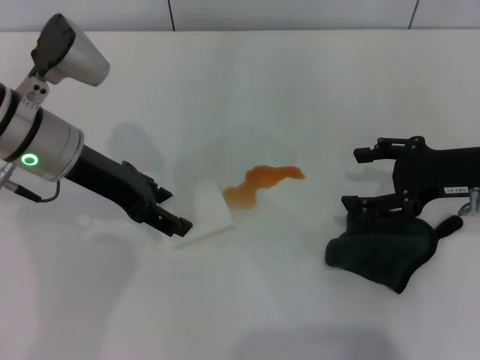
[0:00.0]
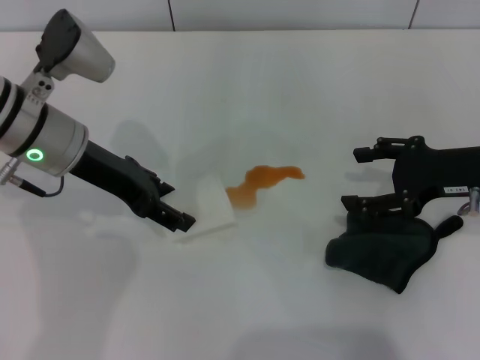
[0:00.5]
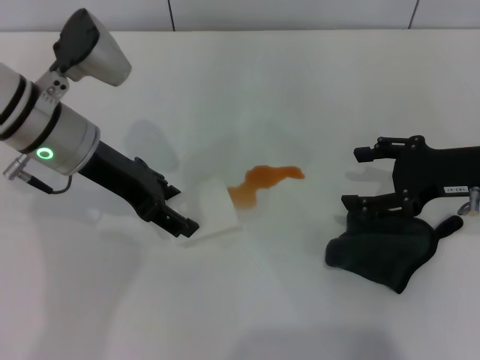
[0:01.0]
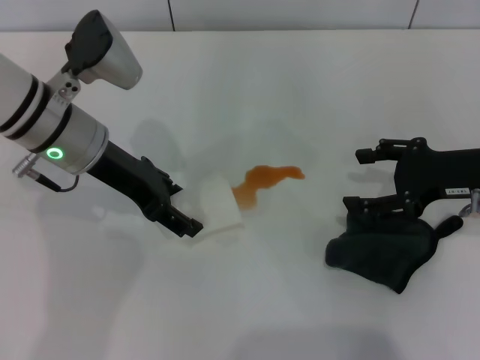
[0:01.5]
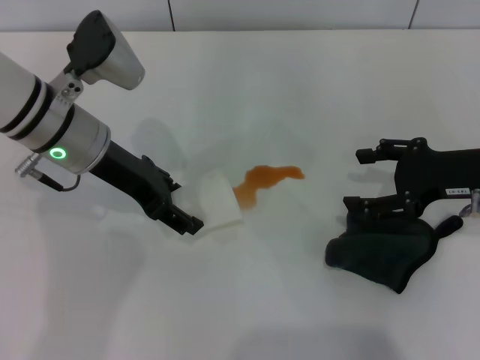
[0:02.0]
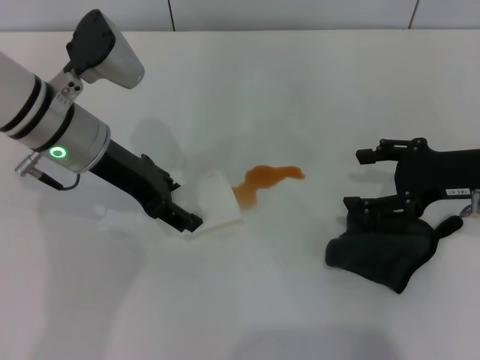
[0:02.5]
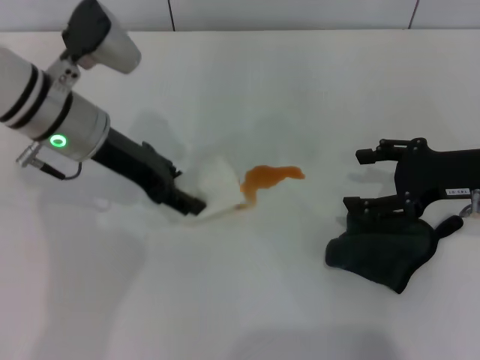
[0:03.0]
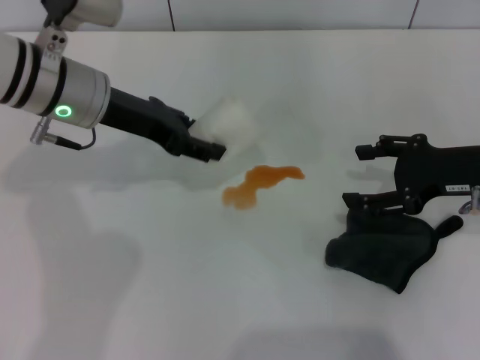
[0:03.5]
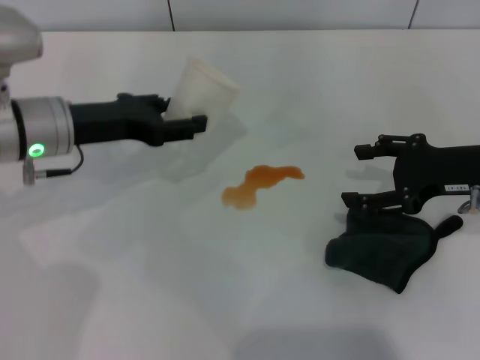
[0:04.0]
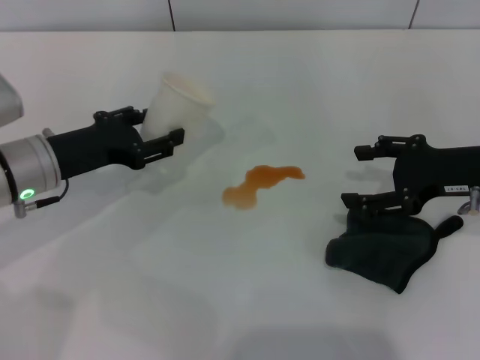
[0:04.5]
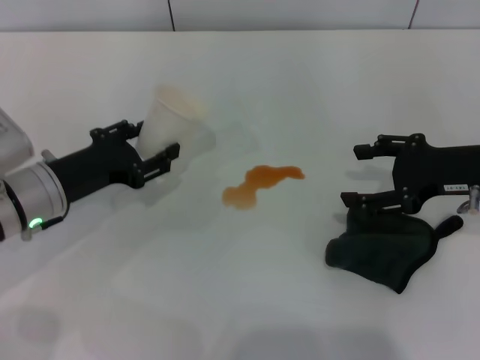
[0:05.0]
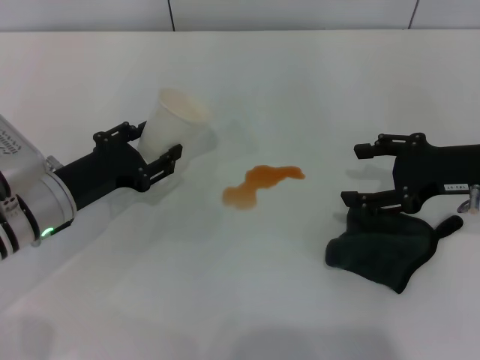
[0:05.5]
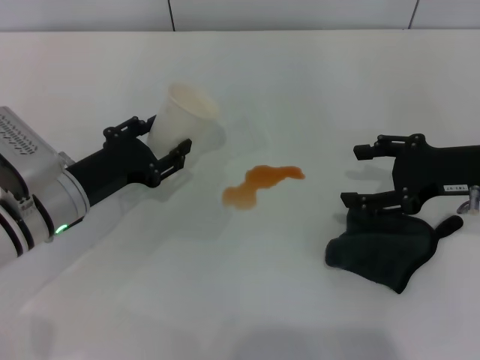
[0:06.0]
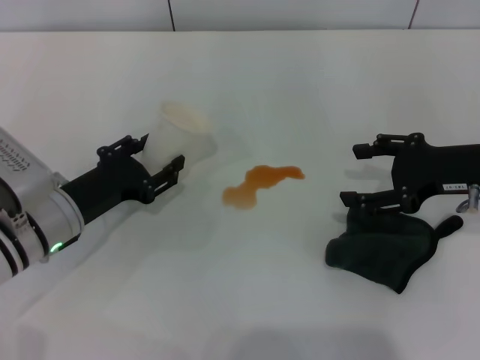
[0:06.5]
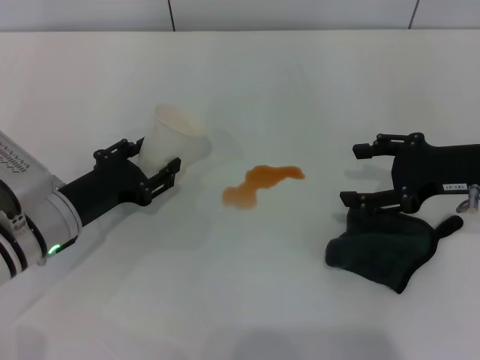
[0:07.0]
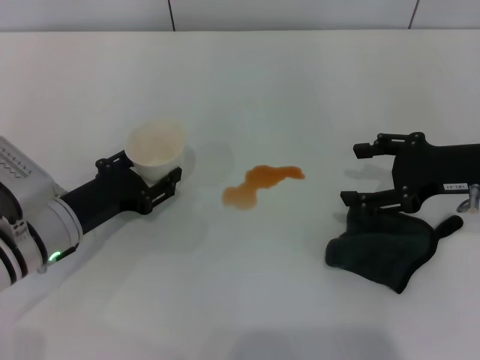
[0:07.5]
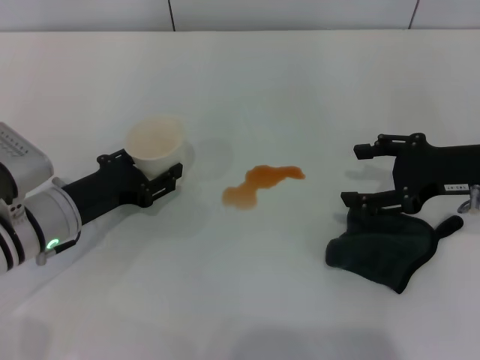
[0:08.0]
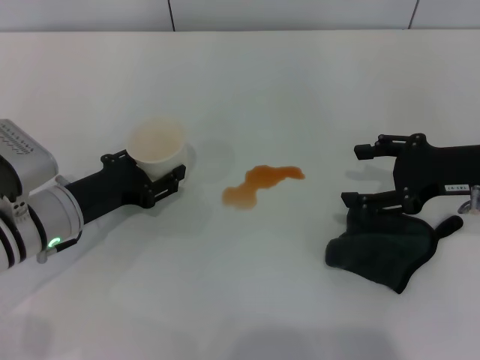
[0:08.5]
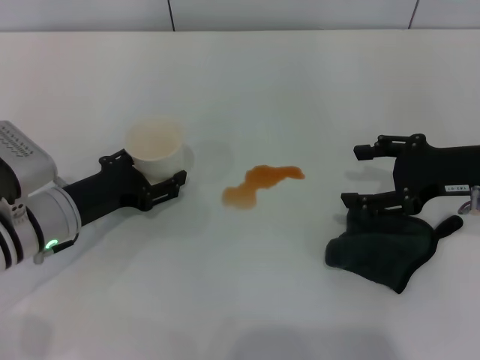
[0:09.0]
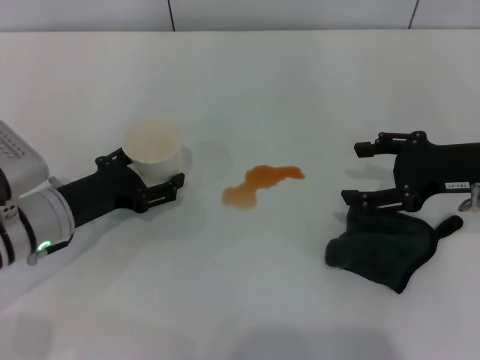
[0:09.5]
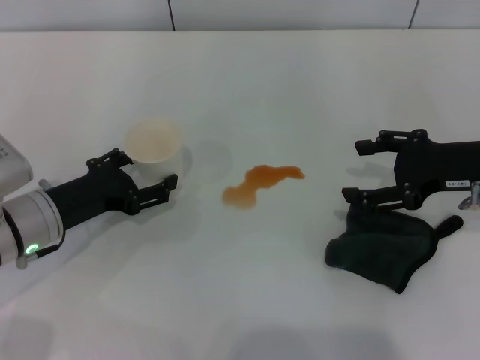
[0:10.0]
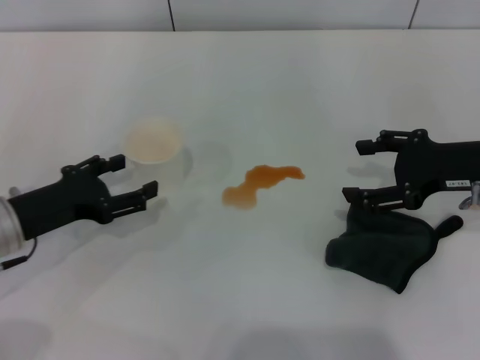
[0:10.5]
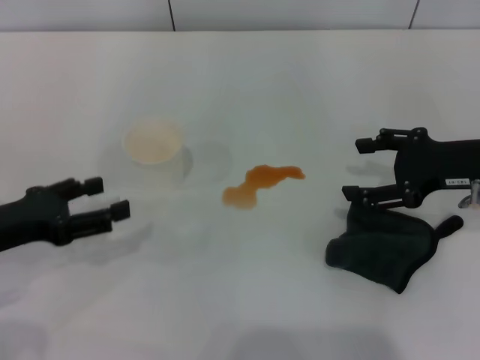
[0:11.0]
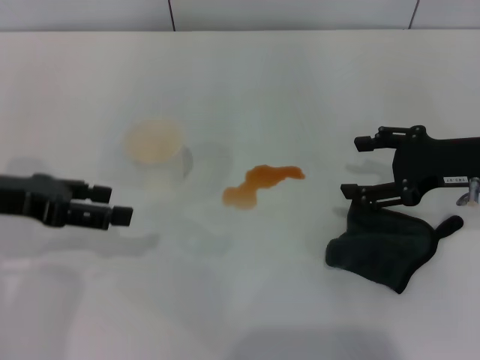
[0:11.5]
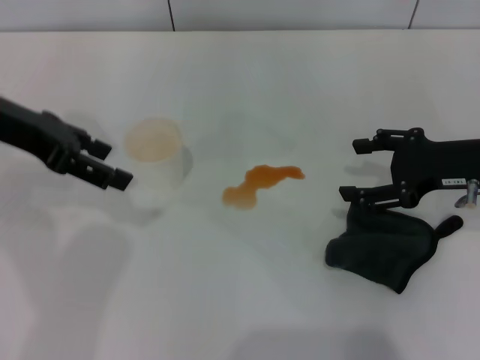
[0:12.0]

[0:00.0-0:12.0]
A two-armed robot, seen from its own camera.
Step, 0:00.0 to 0:02.0: Grasp the paper cup with the left gripper.
Step, 0:02.5 to 0:10.5: Stand the paper cup upright with the left gripper.
0:00.0 to 0:02.0: The grippers make only small movements.
0:02.0 to 0:04.0: The left gripper closes.
0:04.0 to 0:06.0: The left gripper moves downward and backward, some 10 cm.
0:06.0 to 0:08.0: The grippers move only a little.
0:08.0 to 0:10.0: The left gripper opens its fingers.
0:10.0 to 0:12.0: The left gripper heads upward, covering some 20 cm.

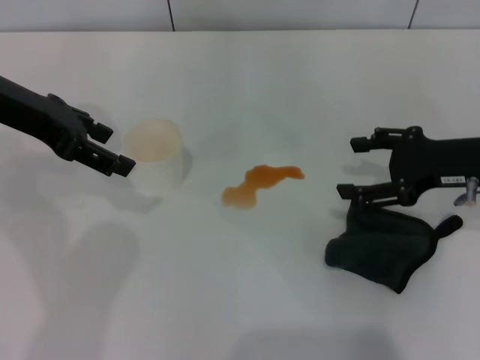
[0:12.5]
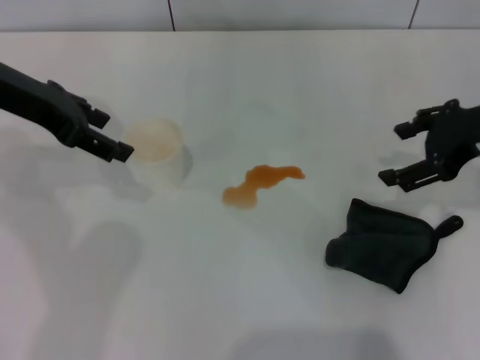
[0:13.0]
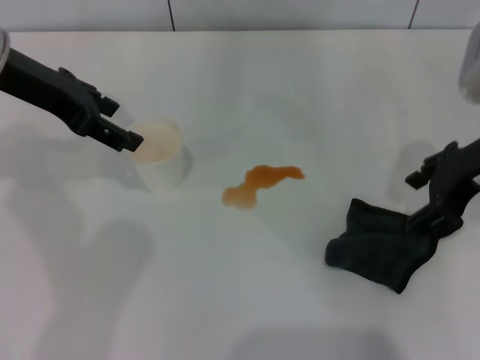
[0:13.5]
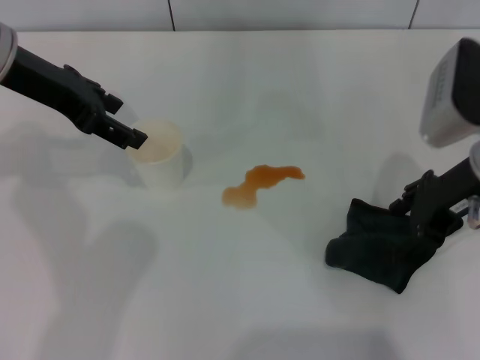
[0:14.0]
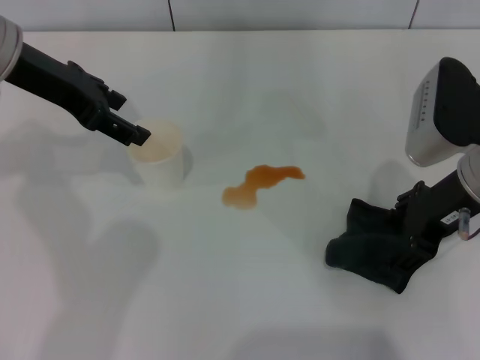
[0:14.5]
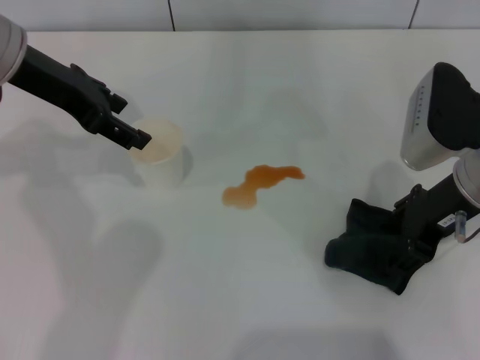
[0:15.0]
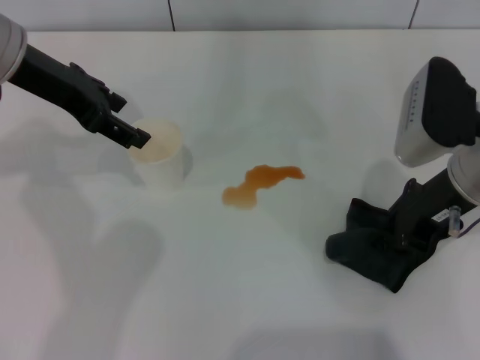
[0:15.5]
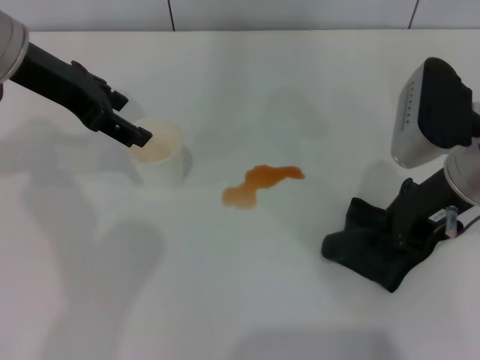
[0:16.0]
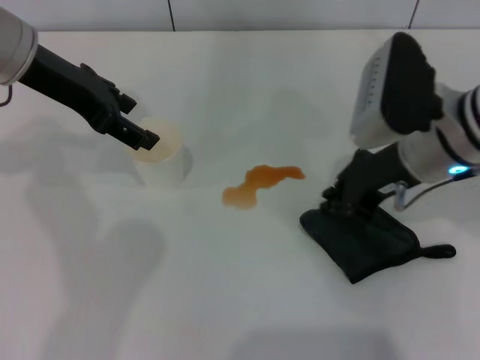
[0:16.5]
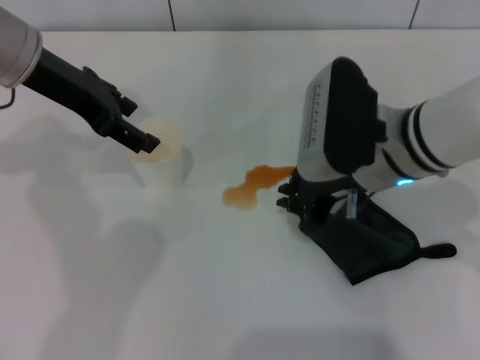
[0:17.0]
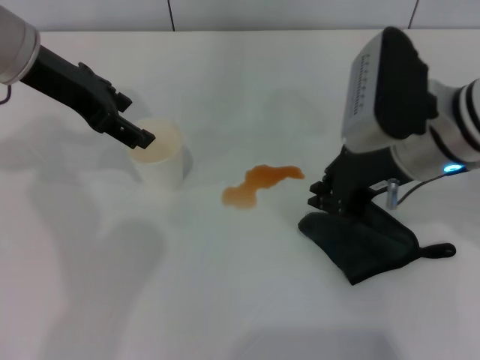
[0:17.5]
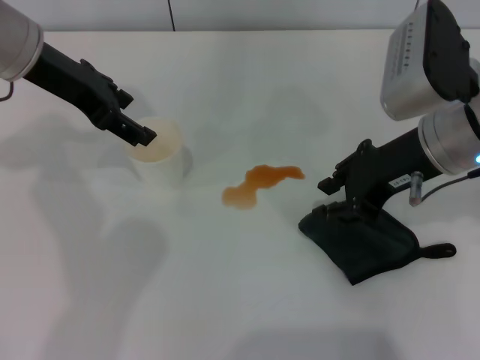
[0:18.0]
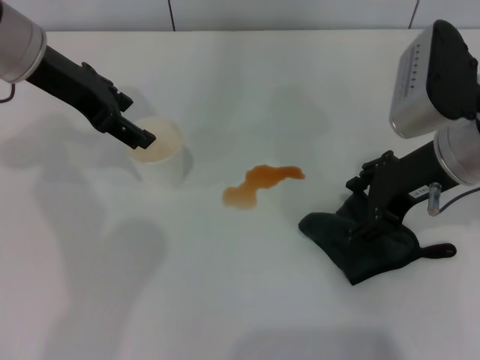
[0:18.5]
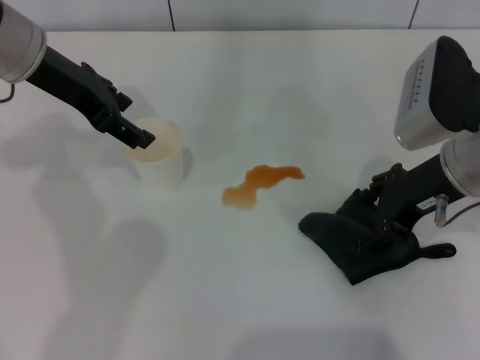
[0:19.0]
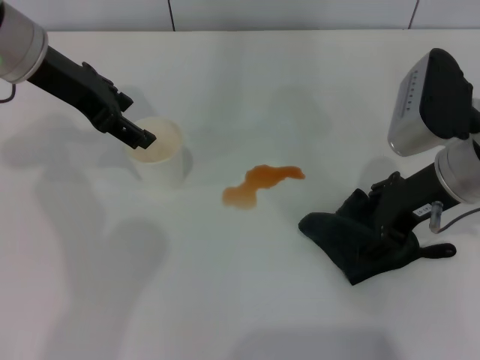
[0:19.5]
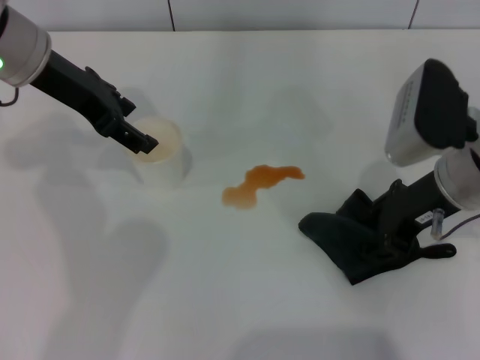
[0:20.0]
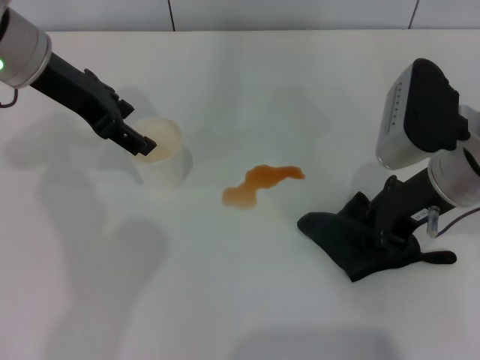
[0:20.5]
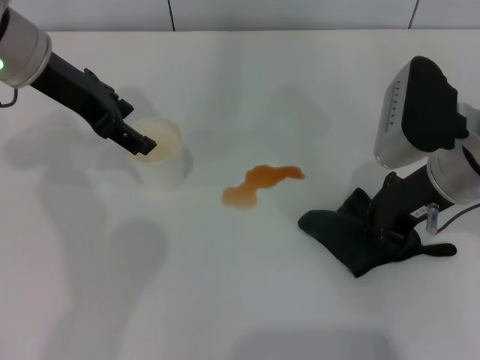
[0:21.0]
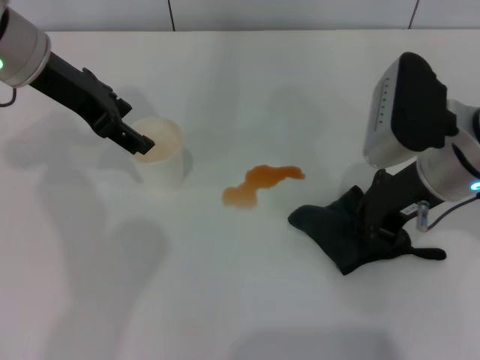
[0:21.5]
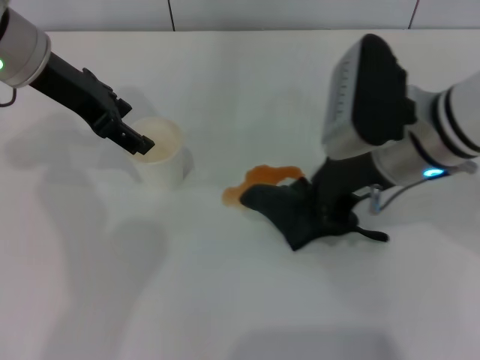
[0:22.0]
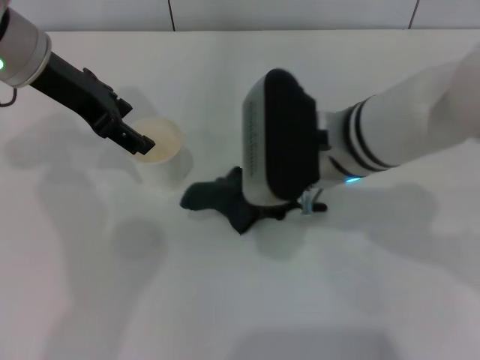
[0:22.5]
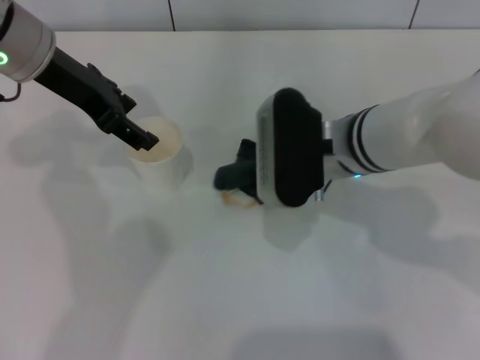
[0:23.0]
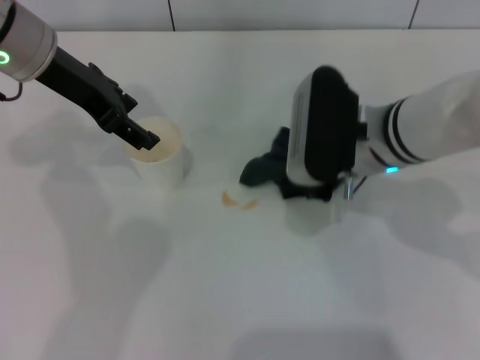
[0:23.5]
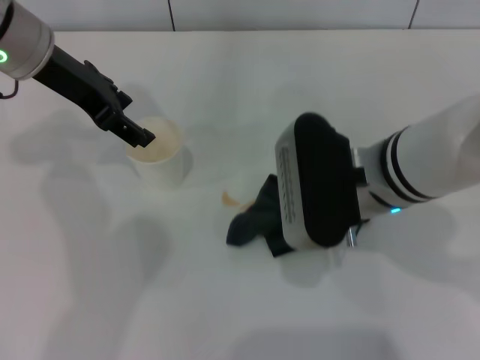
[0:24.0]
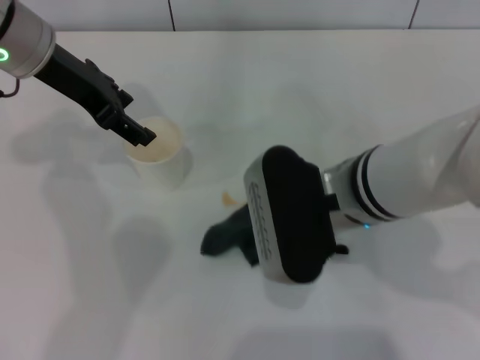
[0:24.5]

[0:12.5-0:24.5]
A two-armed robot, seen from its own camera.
Step, 0:12.5 to 0:16.0: Grasp the rag with the right gripper.
0:12.5 to 0:14.5: The right gripper shifts some 5 cm to the left.
0:14.5 to 0:16.5: The right gripper closes up.
0:16.5 to 0:18.5: The right gripper opens up.
0:18.5 to 0:20.5: The right gripper closes up.
0:20.5 to 0:22.5: The right gripper moves to the left, about 10 cm.

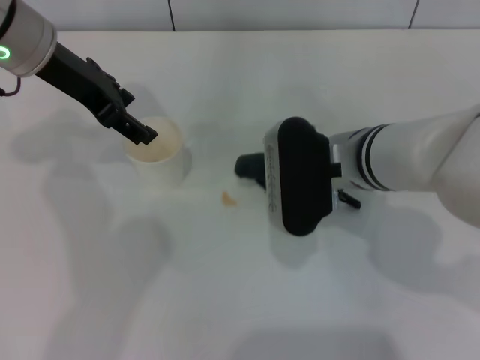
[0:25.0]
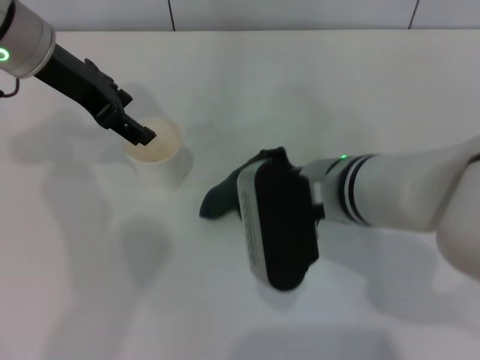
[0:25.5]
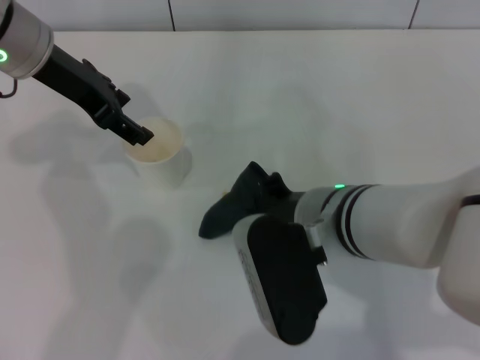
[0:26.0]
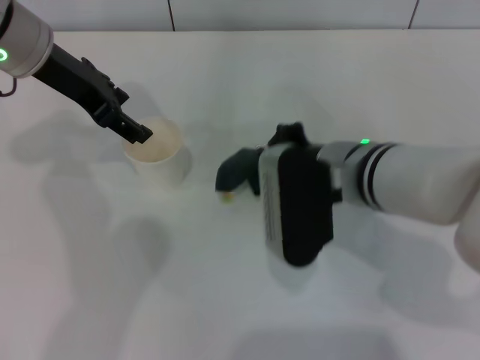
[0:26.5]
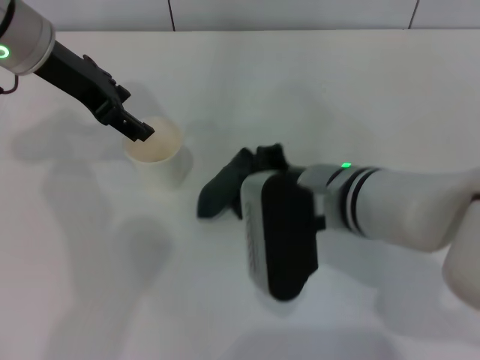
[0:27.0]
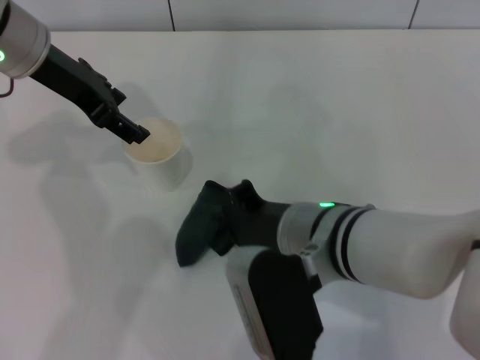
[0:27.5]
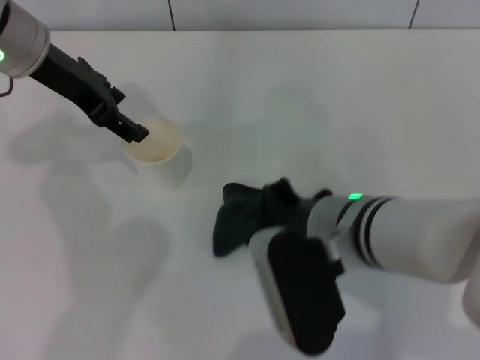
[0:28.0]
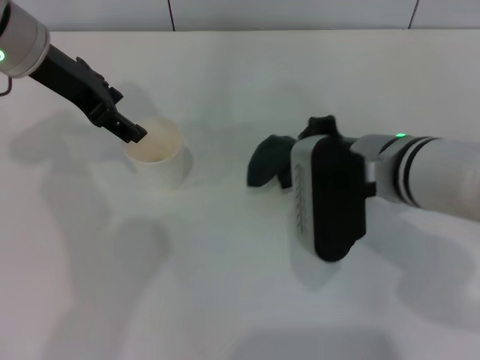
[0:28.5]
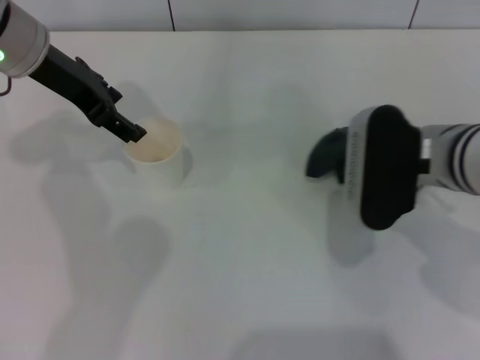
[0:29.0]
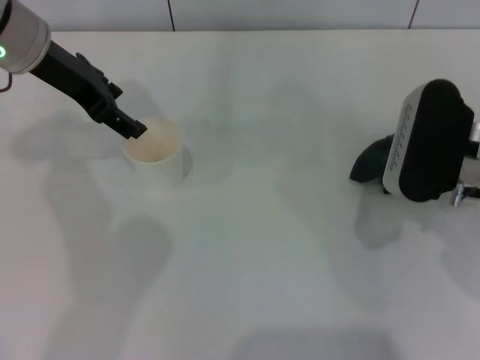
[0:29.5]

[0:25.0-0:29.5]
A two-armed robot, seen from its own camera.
0:27.0 to 0:29.5: The right gripper moves to the right, roughly 15 cm.
